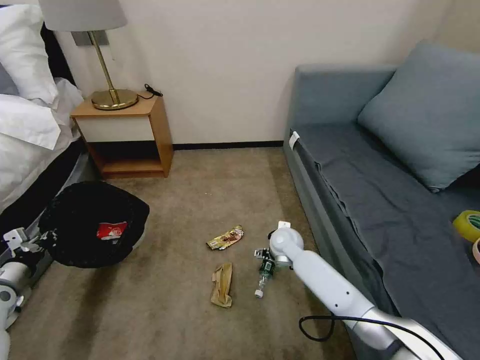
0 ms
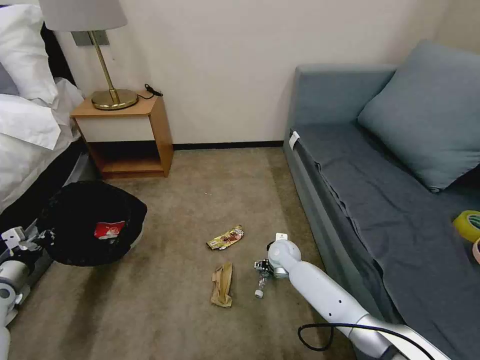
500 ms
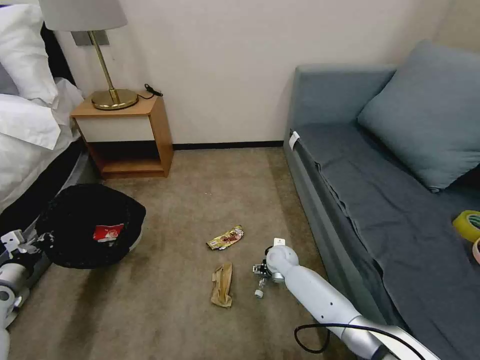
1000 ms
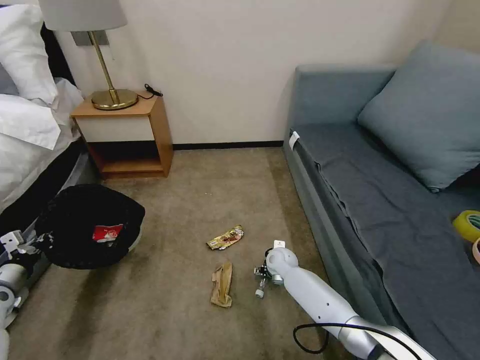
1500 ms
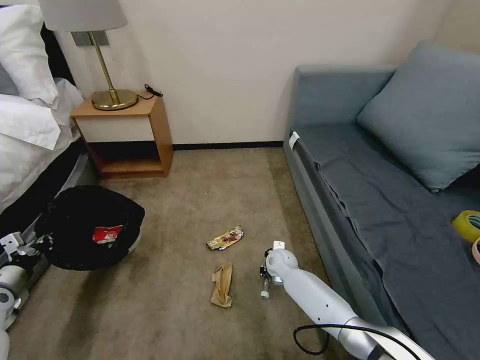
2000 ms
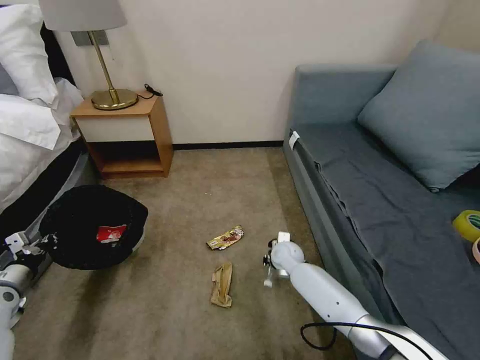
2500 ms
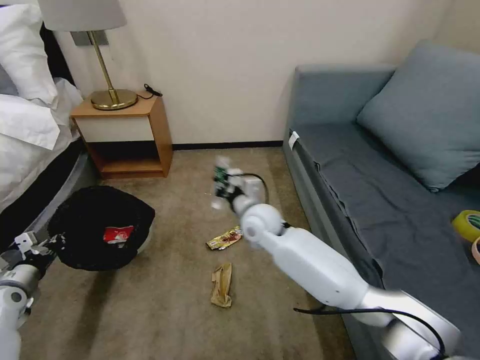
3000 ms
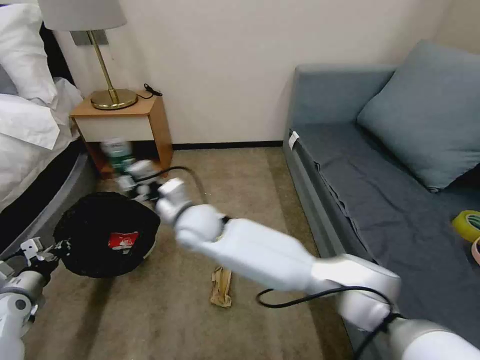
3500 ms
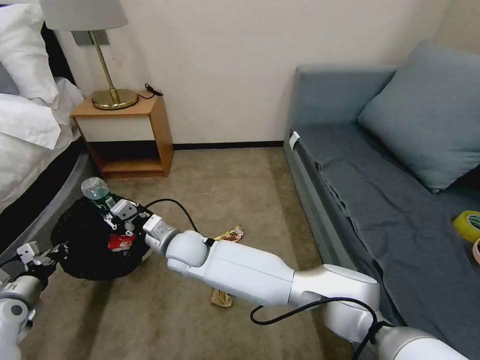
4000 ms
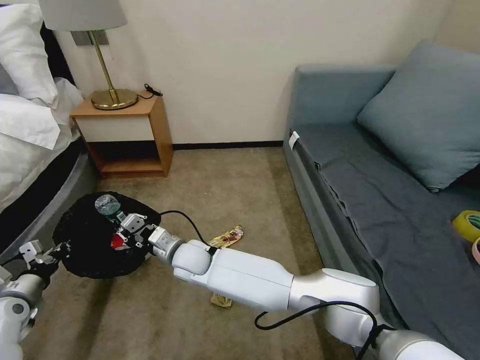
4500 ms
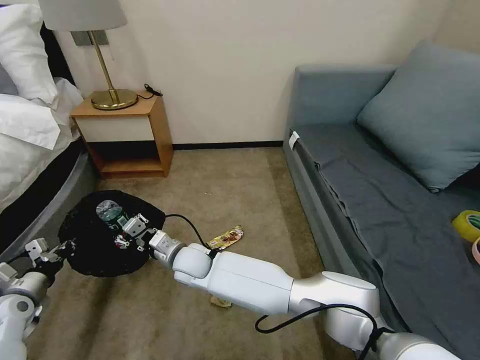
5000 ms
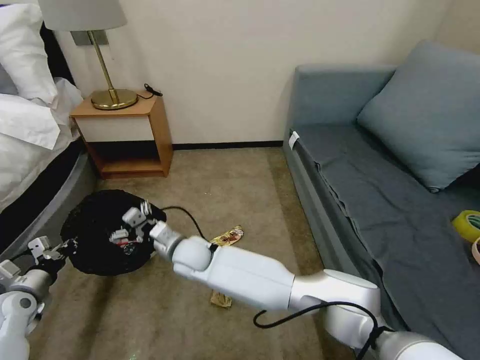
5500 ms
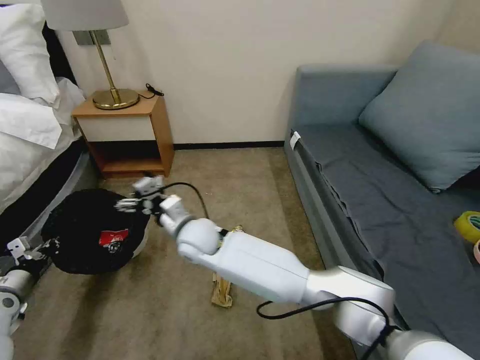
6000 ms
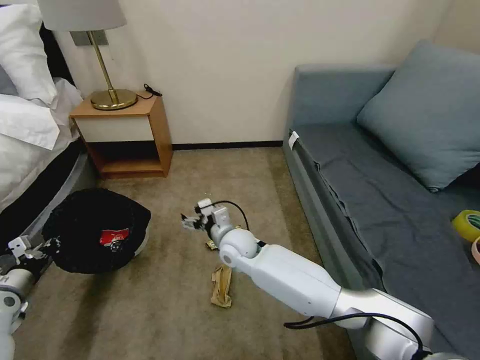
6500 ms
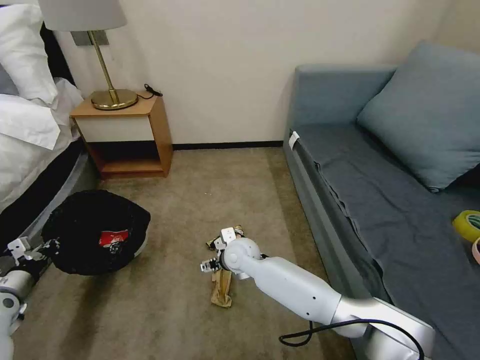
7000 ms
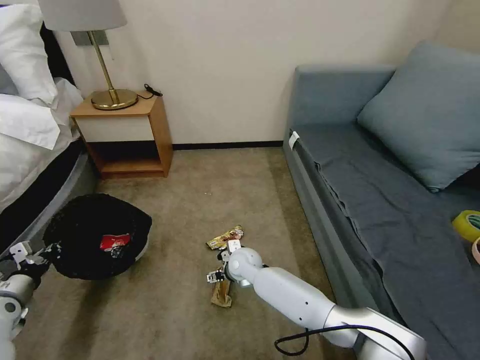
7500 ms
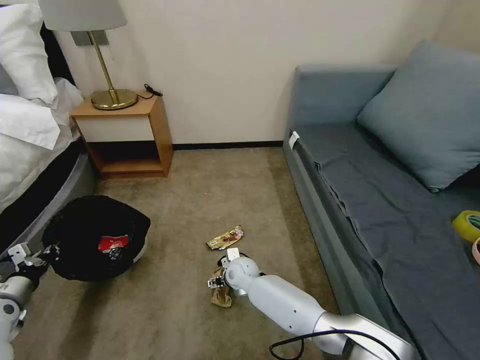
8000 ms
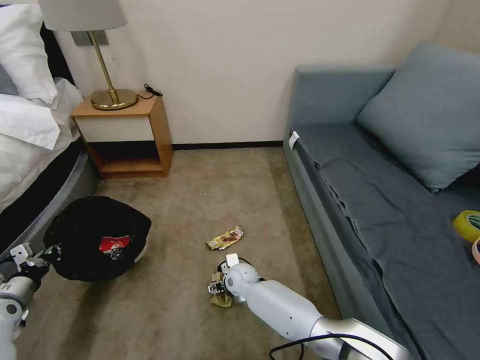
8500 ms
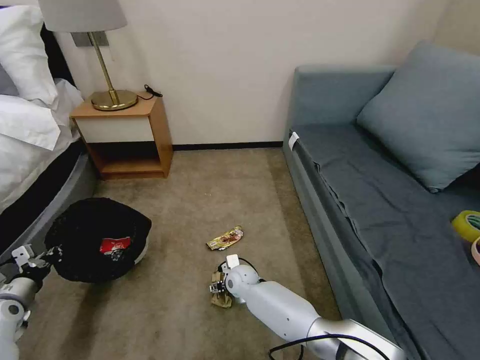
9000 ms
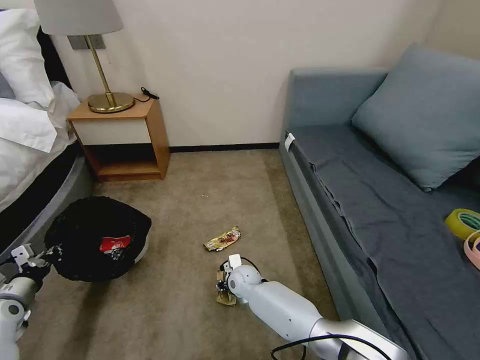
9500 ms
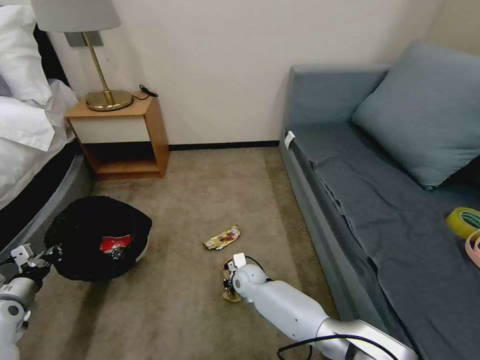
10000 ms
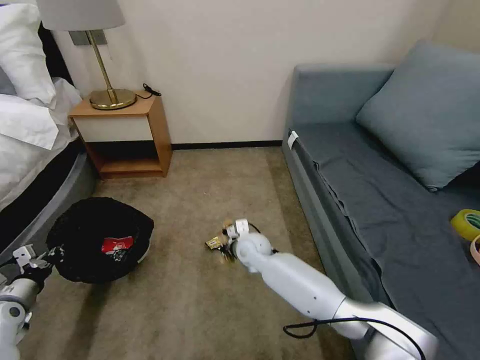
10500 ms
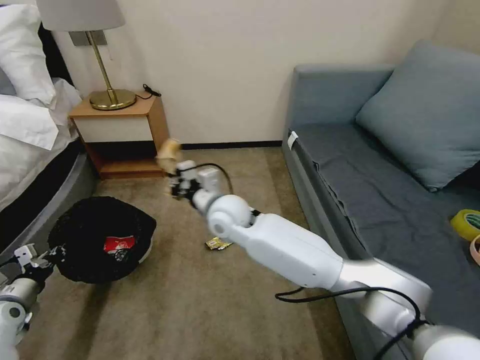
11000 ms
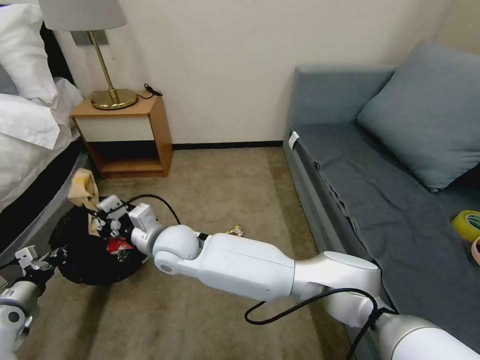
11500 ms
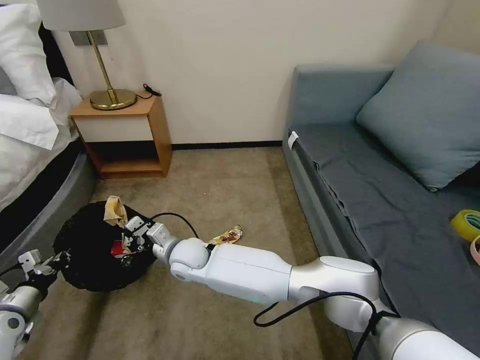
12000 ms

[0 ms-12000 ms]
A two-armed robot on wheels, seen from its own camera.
Task of the whole recording: Pick up the trash bin, then pick up the garbage on the floor and place it into the trash bin.
0 ms to 2000 ms: The right gripper is displaced downward by approximately 10 cm, and closes its fingers.
2000 ms to 4000 ms: The right gripper is displaced to the left and upward by about 30 cm.
4000 ms to 6000 ms: The right gripper opens up.
6000 ms to 8000 ms: The right gripper shifts roughly 20 cm downward and to the right.
8000 ms to 10000 ms: The right gripper closes.
10000 ms to 12000 ms: The right gripper heads upward and to the left, covering approximately 25 cm.

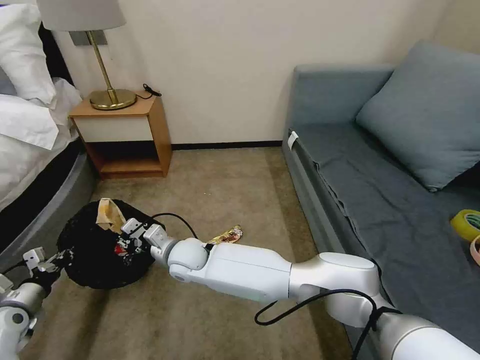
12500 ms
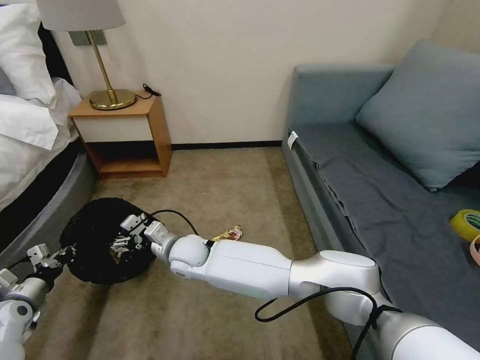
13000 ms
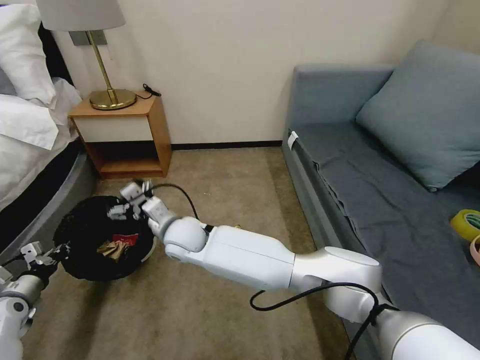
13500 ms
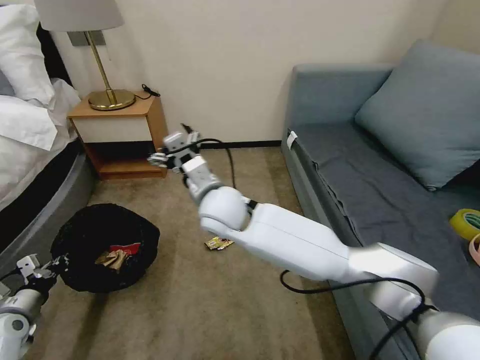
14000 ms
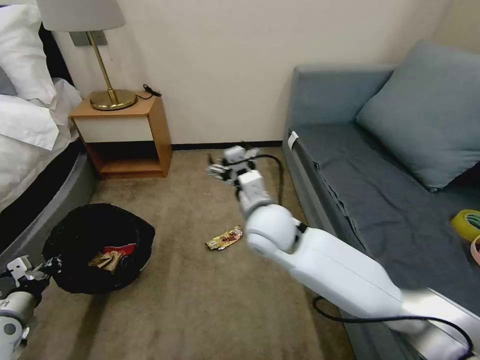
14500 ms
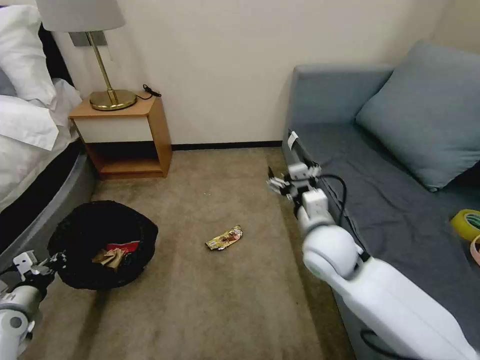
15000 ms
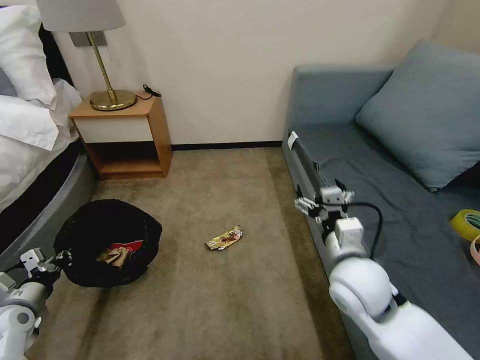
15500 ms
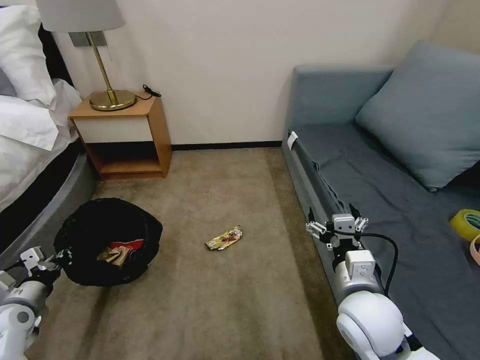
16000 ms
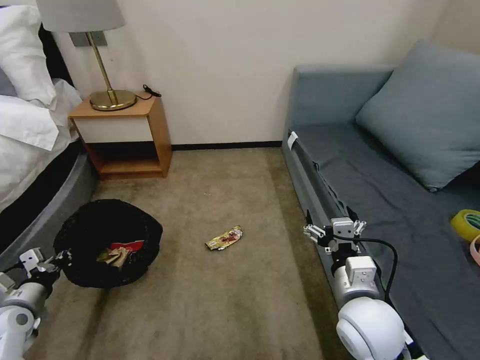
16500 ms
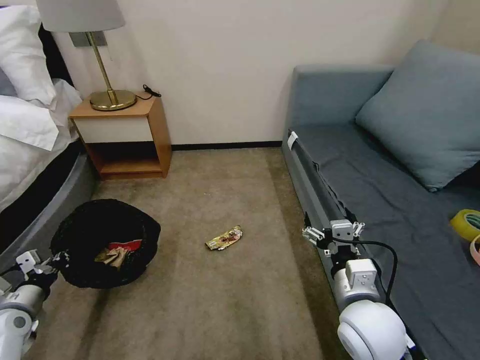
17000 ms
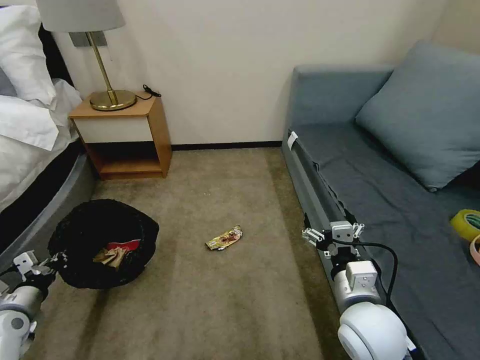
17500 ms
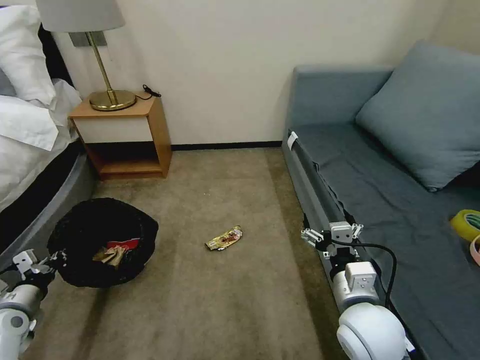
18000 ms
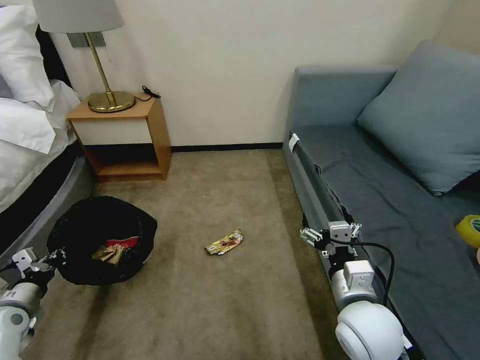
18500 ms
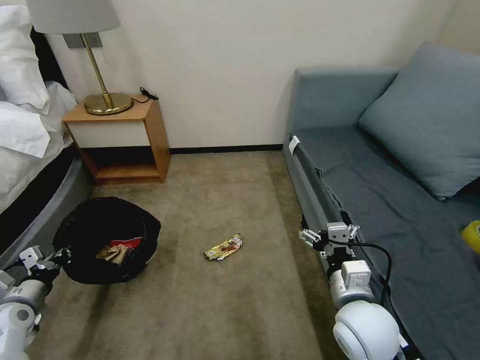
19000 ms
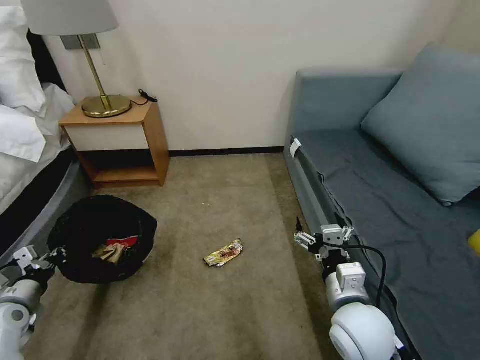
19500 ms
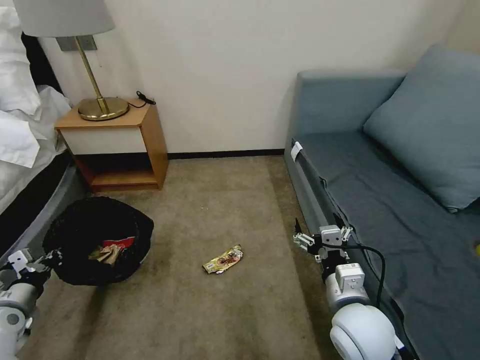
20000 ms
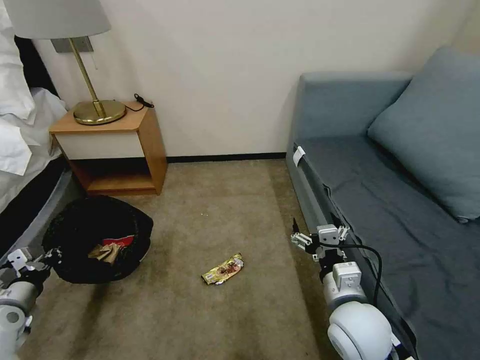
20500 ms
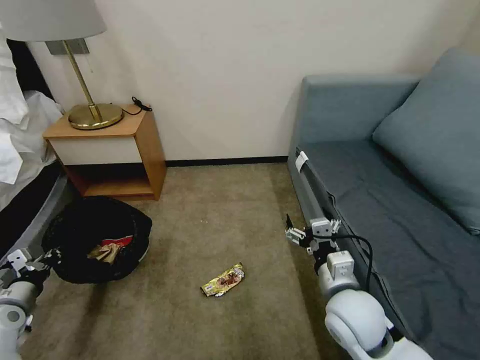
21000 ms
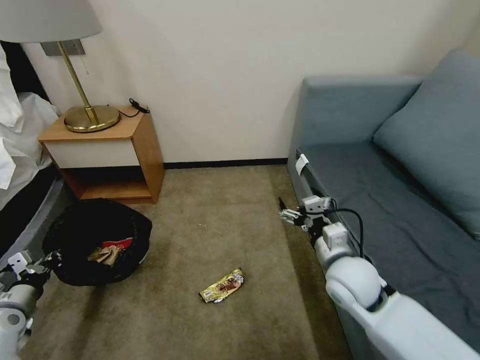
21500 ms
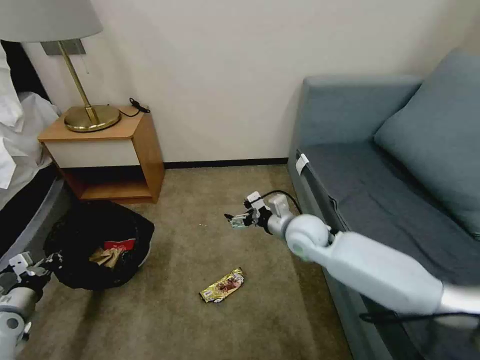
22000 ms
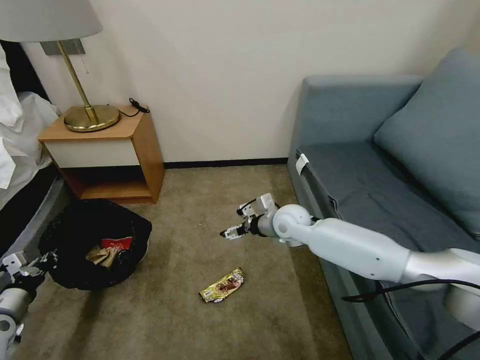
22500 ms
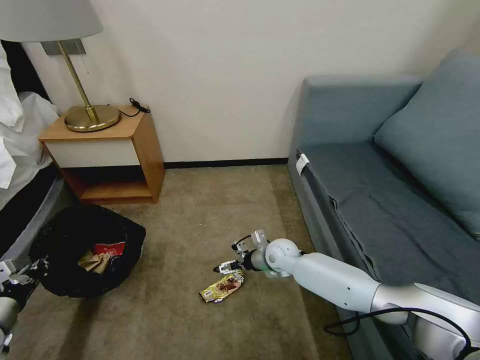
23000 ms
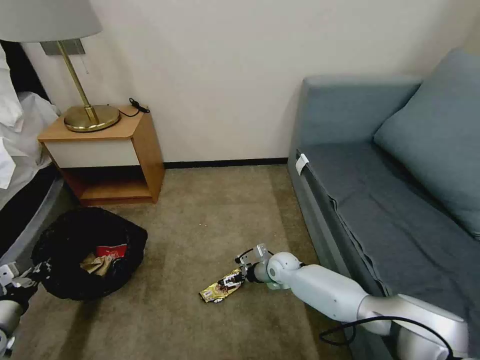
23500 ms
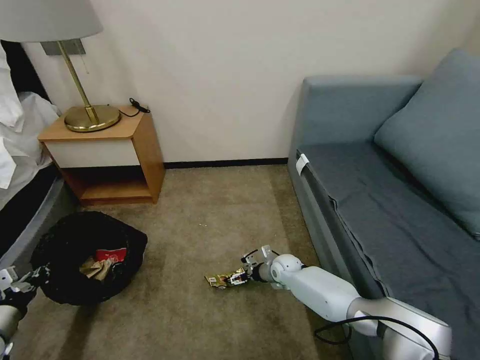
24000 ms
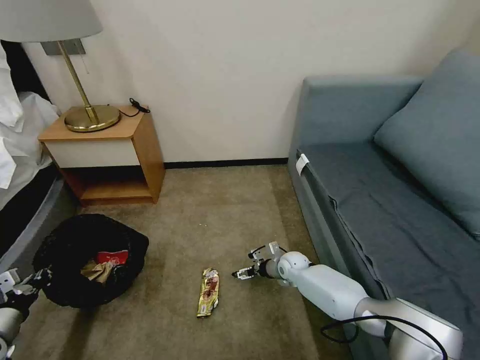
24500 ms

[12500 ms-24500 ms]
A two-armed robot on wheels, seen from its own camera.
Task of the whole recording: Pick up the trash bin, then pick up the garbage on the floor and place it into the trash bin.
12500 ms to 14500 ms: The right gripper goes about 25 cm to the right and upward, and opens.
14500 ms to 16500 ms: The right gripper travels to the right, backward and downward by approximately 25 cm.
16500 ms to 18500 ms: The two grippers keep their place.
20500 ms to 22500 ms: The right gripper shifts about 25 cm forward.
22500 ms to 24500 ms: The right gripper shifts about 20 cm downward.

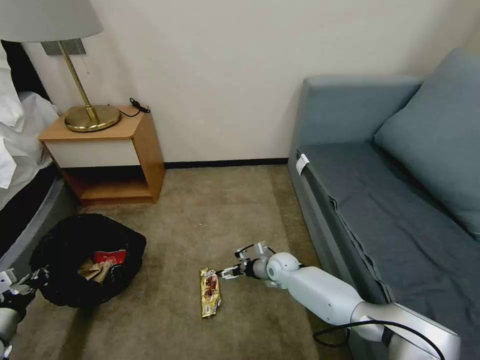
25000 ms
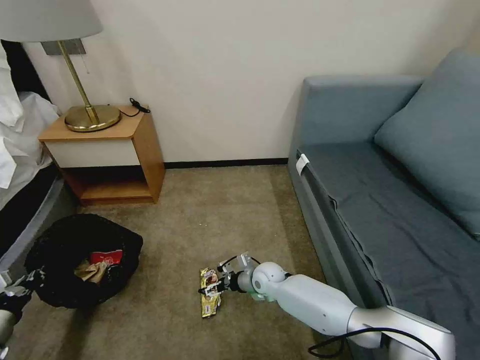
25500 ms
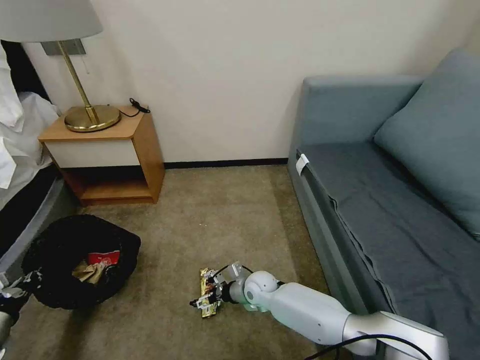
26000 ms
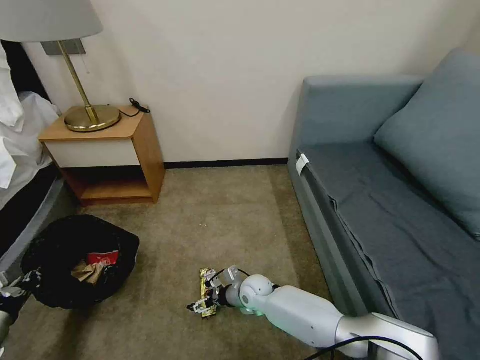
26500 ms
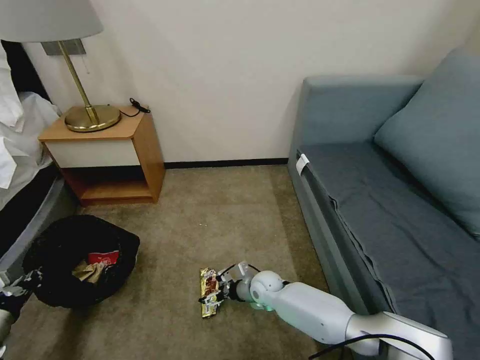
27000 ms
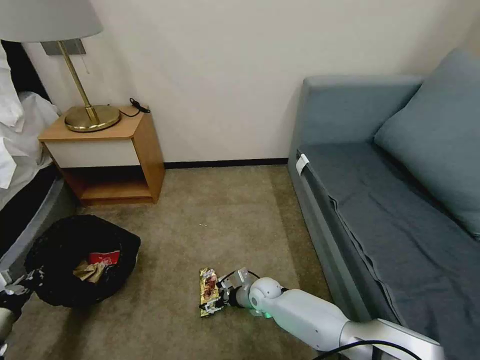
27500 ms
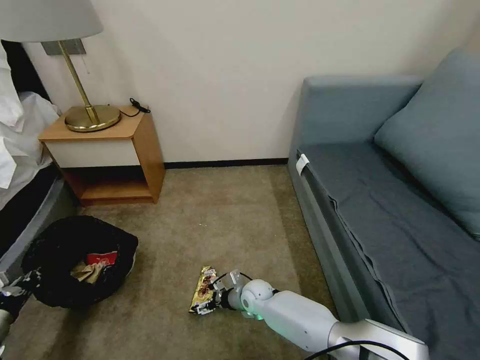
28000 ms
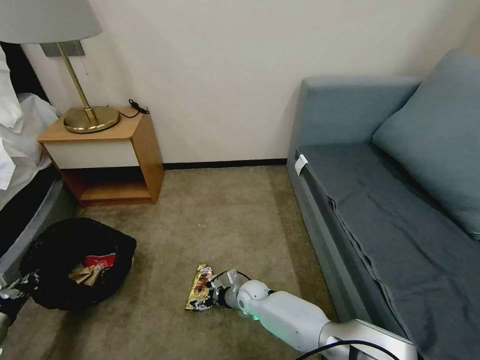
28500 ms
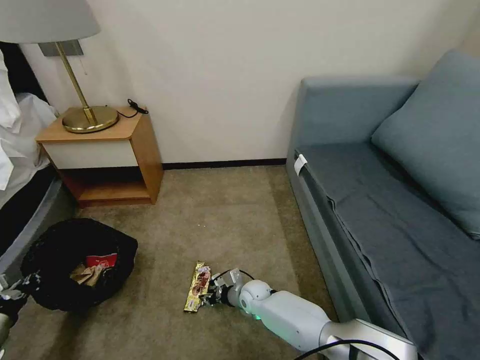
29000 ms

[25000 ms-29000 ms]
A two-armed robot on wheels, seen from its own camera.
Task of the whole recording: Pick up the trash bin, then pick up the garbage on the floor and place it into the trash bin.
25000 ms to 27000 ms: The right gripper is displaced backward and to the left by roughly 10 cm.
27000 ms to 29000 ms: The right gripper changes place by approximately 5 cm, and closes.
